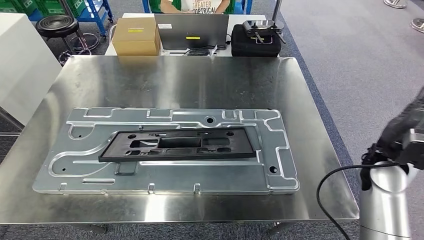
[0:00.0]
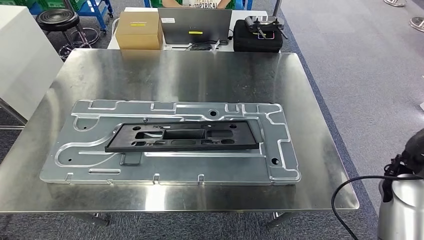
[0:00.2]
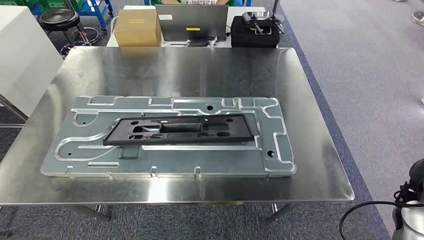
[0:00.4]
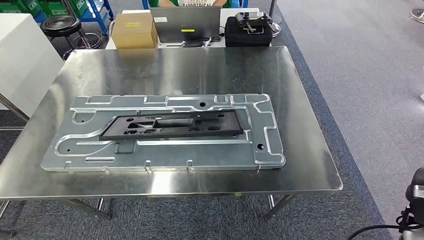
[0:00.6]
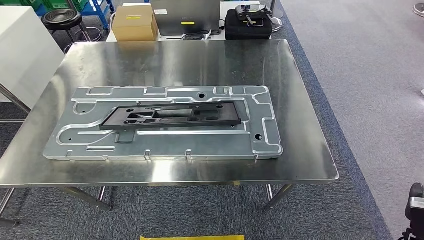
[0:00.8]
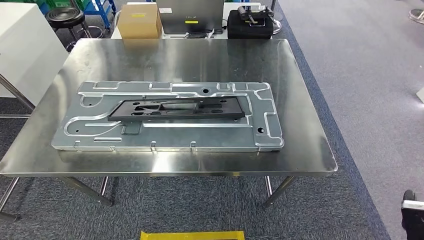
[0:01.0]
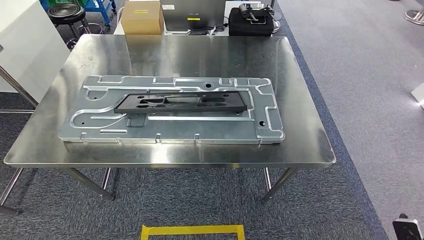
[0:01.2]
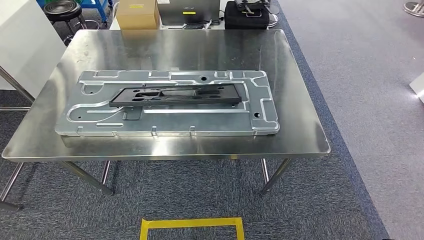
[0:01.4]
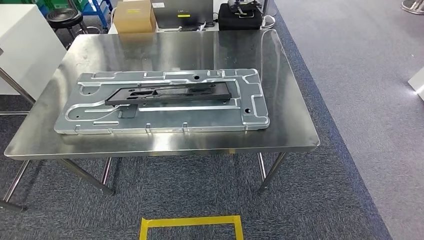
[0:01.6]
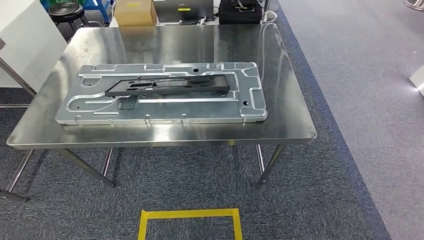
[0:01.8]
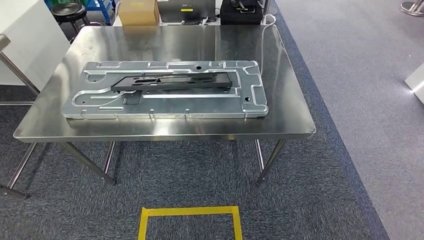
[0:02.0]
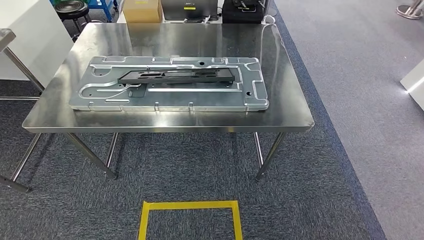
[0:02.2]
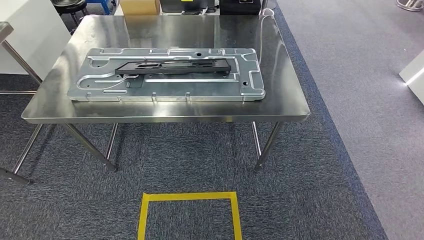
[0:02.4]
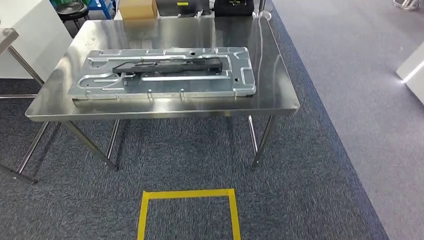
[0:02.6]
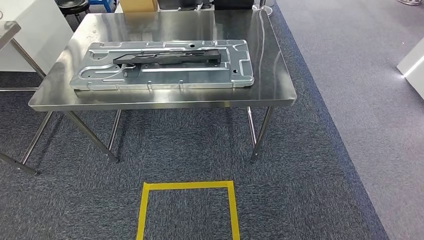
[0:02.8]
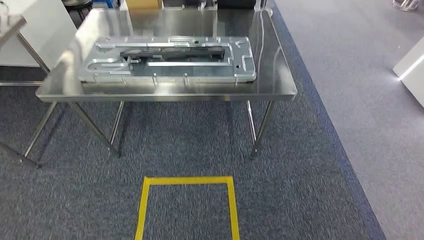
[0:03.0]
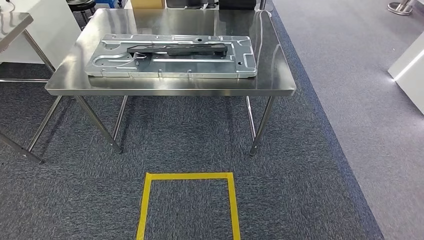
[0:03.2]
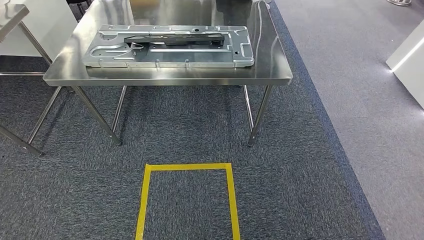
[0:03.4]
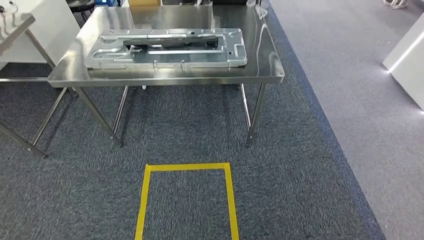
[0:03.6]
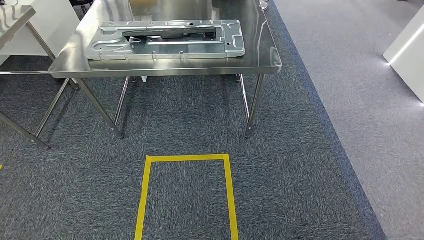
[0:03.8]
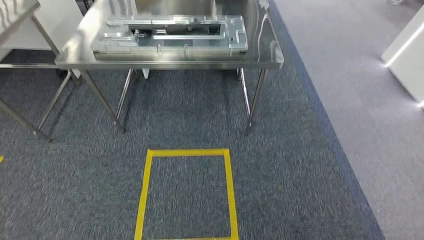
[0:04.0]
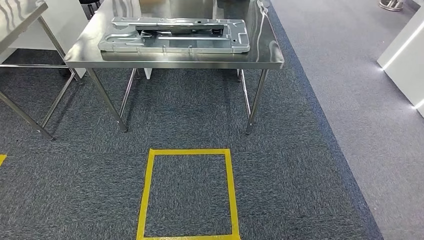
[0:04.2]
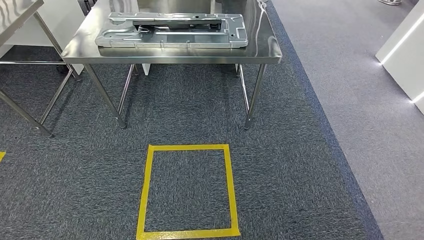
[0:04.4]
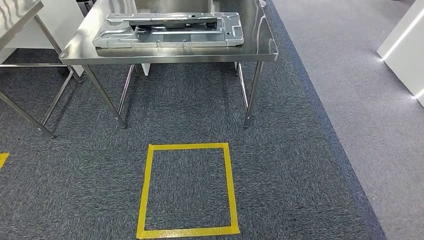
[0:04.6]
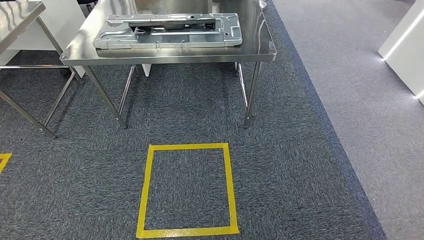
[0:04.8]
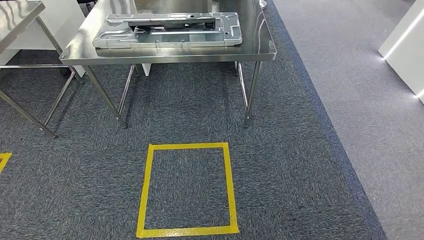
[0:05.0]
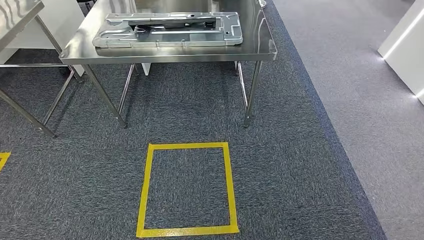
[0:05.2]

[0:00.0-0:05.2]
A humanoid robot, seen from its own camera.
Step, 0:00.8 to 0:05.0: Return to the initial position at the shelf.
